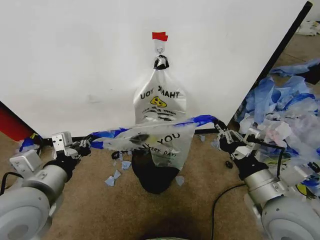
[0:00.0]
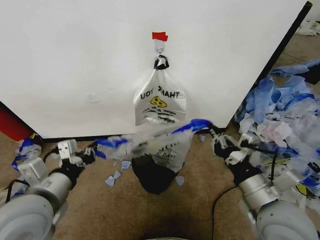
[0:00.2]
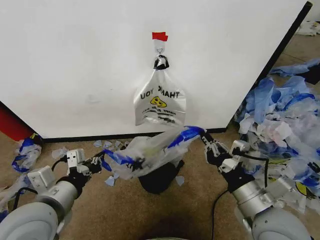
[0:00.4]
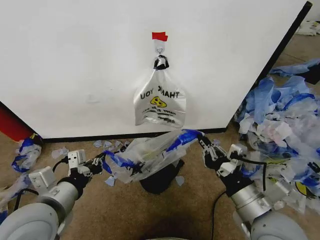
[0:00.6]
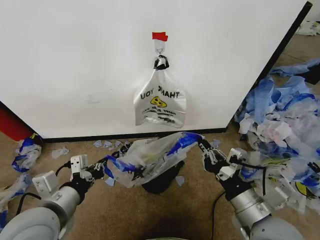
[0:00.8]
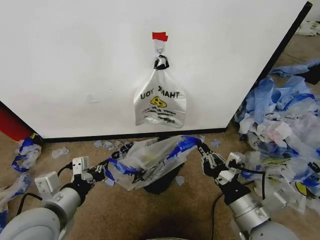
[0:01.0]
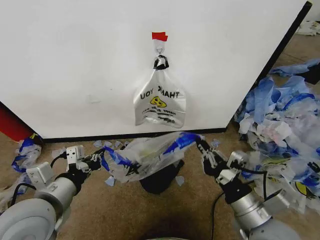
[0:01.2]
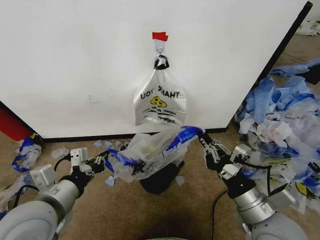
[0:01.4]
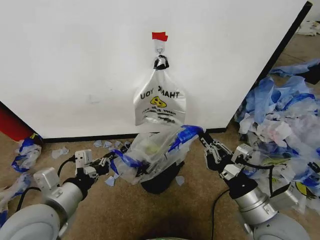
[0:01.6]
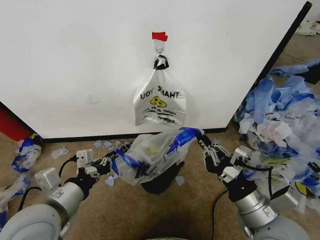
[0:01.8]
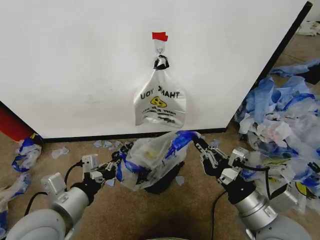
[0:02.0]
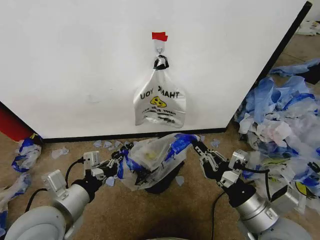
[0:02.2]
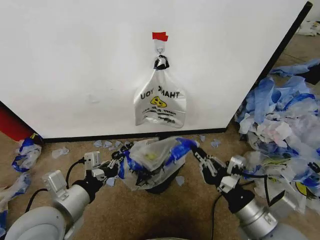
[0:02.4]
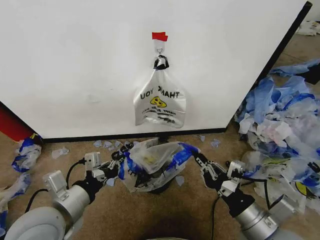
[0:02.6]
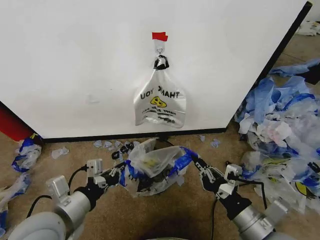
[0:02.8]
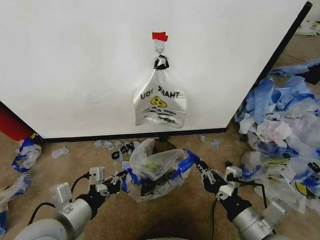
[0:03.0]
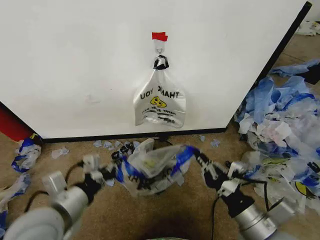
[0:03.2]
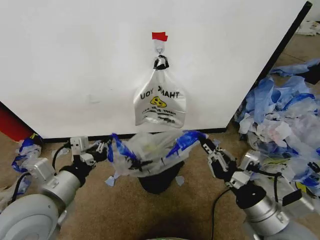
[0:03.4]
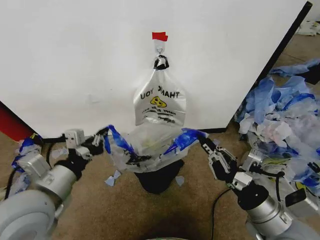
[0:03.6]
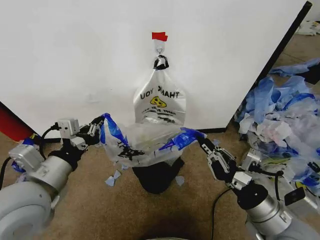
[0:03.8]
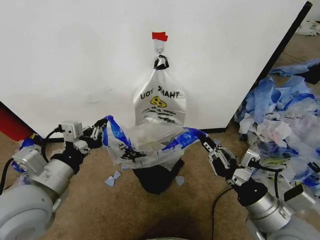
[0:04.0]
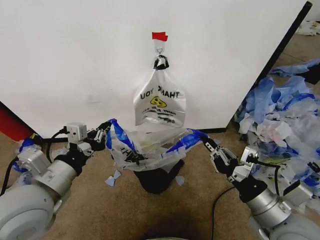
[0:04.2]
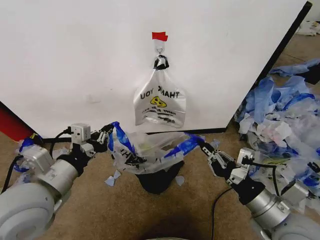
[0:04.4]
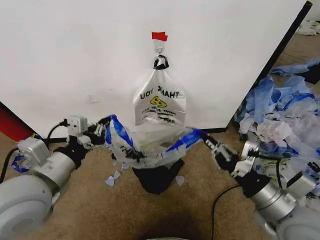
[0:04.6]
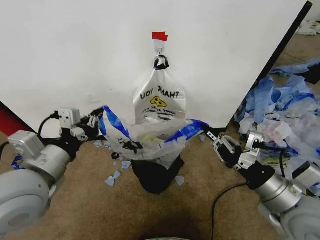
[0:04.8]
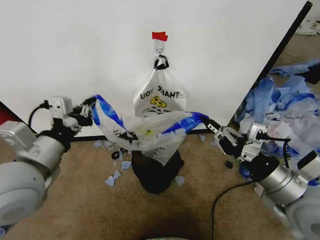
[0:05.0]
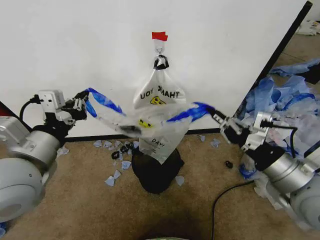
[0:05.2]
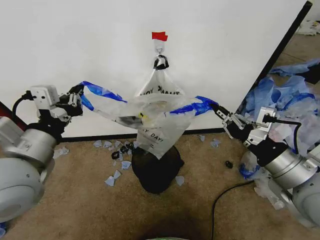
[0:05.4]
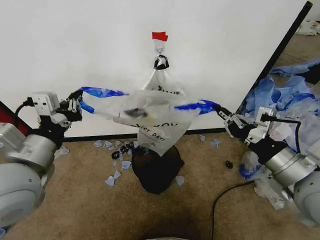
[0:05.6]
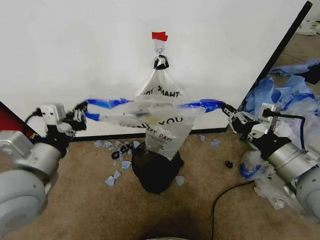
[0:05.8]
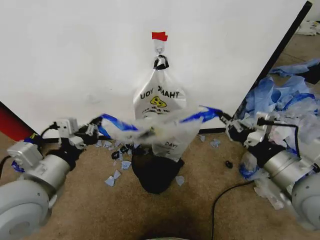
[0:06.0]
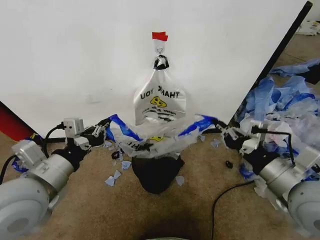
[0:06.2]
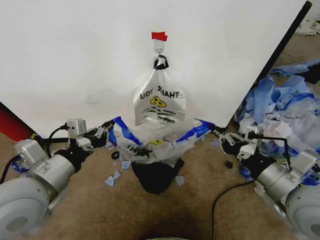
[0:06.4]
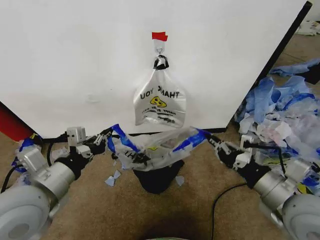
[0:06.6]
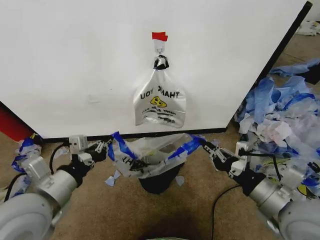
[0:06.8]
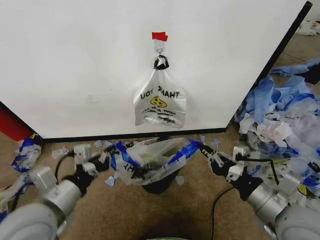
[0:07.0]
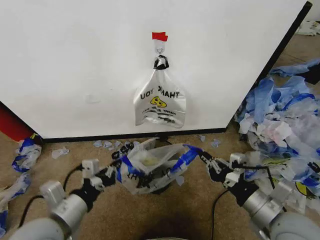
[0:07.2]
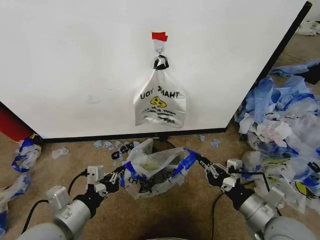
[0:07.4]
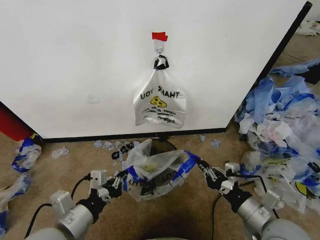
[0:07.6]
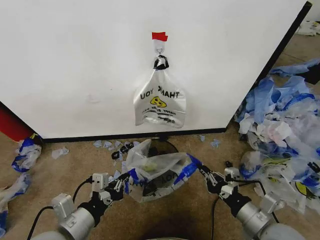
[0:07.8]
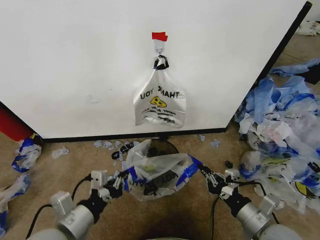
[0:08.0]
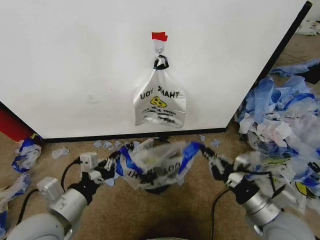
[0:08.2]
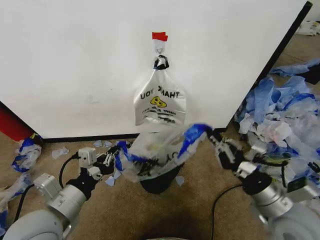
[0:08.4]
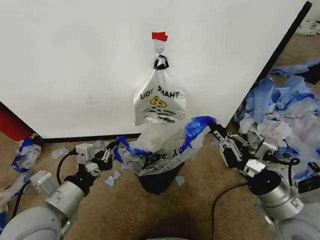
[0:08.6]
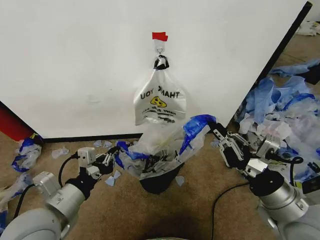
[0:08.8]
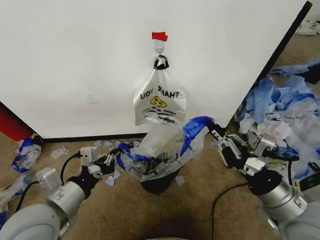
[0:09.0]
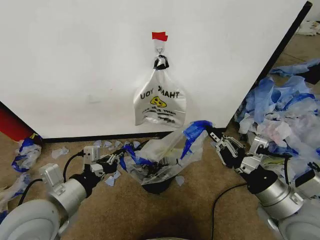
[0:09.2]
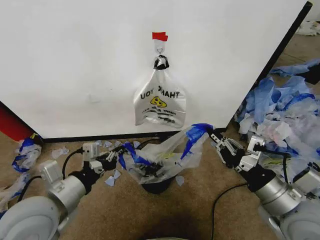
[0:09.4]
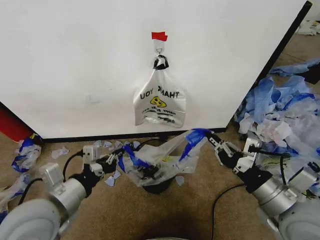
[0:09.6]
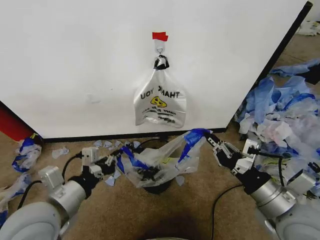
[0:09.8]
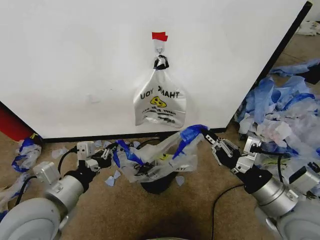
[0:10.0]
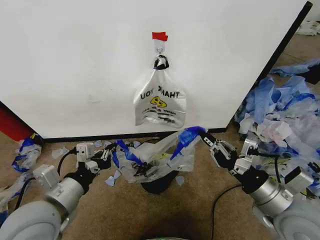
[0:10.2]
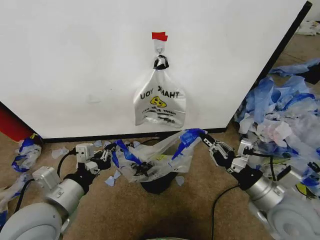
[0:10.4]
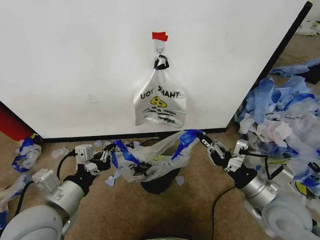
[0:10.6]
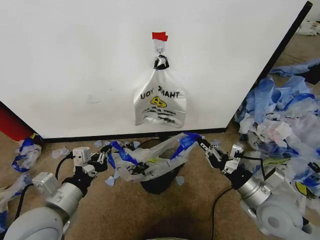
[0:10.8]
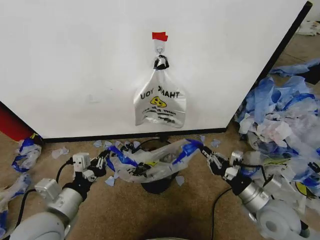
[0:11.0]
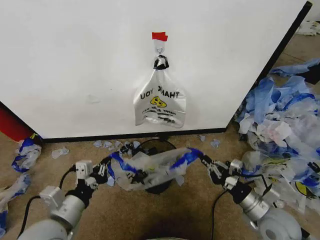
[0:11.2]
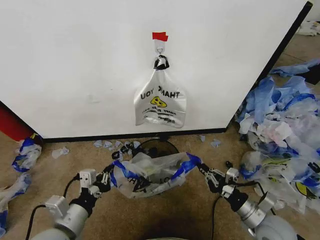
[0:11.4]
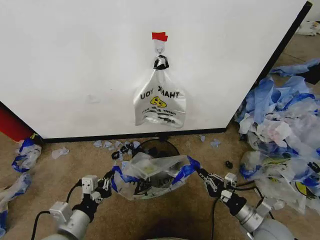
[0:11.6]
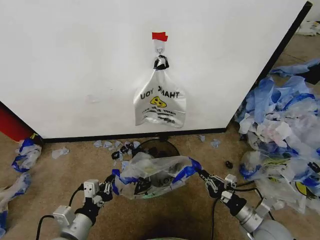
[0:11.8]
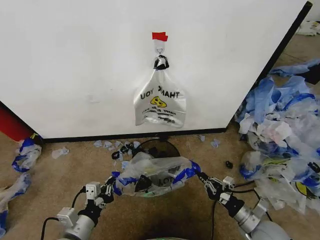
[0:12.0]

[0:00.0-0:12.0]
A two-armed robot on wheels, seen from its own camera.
Task of the whole recording: Pick up the garbage bag from the wall and place it over the trash bin.
0:03.0 to 0:04.4: The right gripper changes place by roughly 5 cm. The left gripper travels upward by about 5 cm.
0:04.4 to 0:06.0: The right gripper goes roughly 10 cm upward.
0:06.0 to 0:07.6: The right gripper goes some 15 cm downward. Meanwhile the left gripper shifts roughly 10 cm downward and backward.
0:07.6 to 0:09.0: The right gripper shifts roughly 5 cm upward; the left gripper moves roughly 5 cm.
0:09.0 to 0:10.4: There are only small adjustments of the grippers.
0:10.4 to 0:12.0: Both grippers travel together downward, approximately 15 cm.

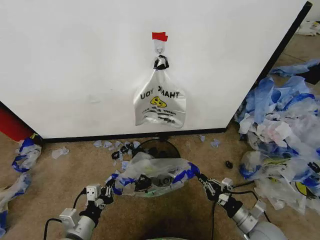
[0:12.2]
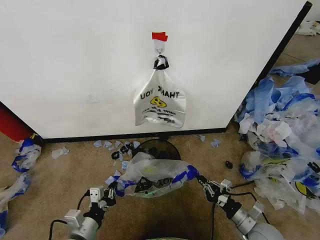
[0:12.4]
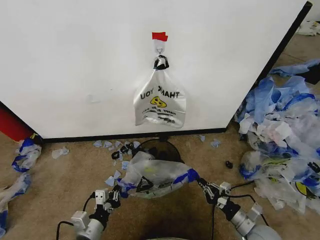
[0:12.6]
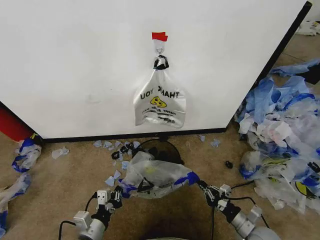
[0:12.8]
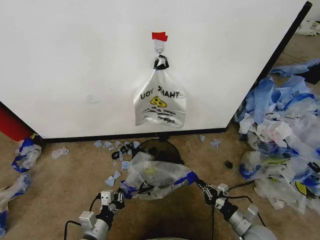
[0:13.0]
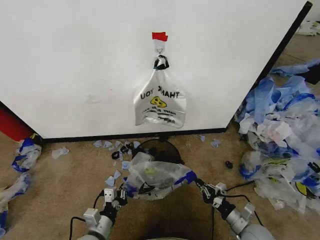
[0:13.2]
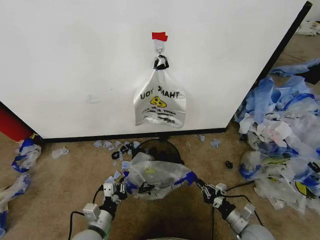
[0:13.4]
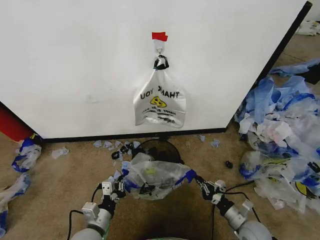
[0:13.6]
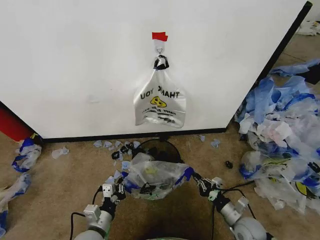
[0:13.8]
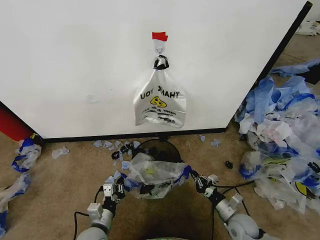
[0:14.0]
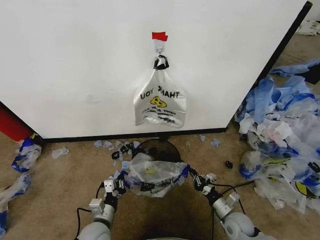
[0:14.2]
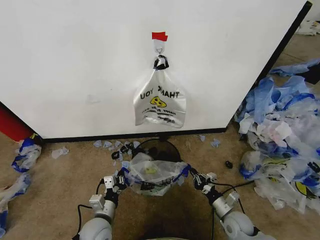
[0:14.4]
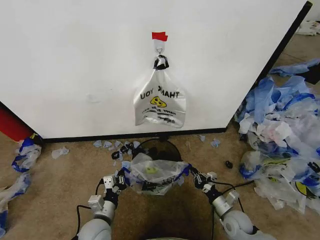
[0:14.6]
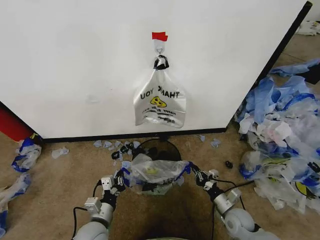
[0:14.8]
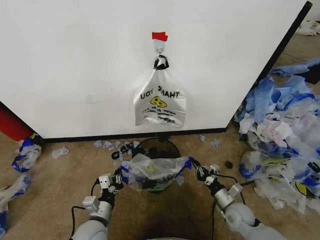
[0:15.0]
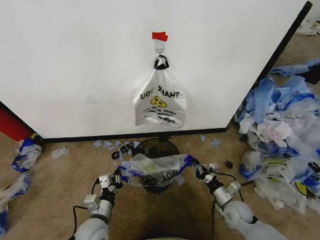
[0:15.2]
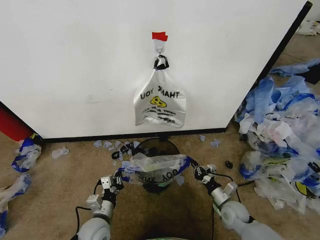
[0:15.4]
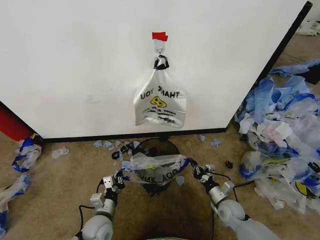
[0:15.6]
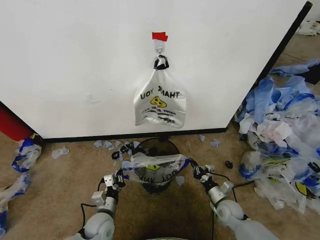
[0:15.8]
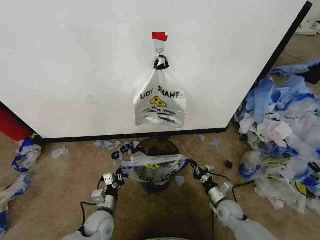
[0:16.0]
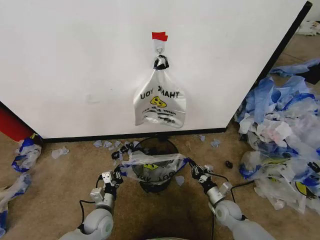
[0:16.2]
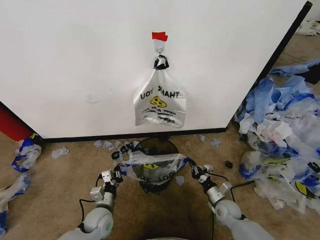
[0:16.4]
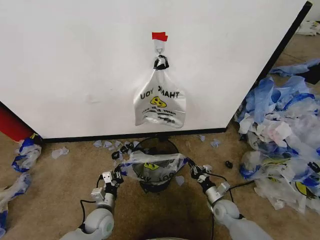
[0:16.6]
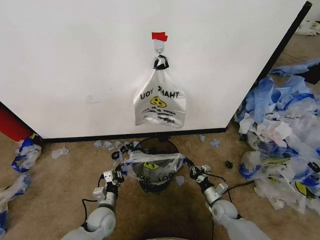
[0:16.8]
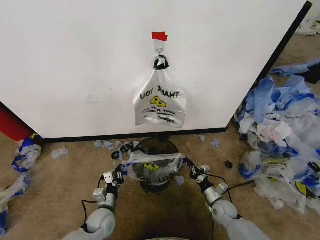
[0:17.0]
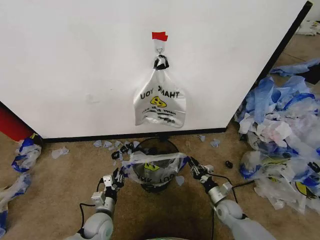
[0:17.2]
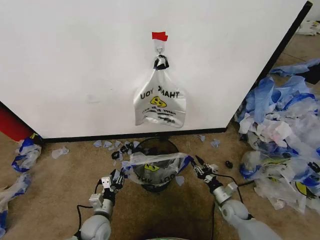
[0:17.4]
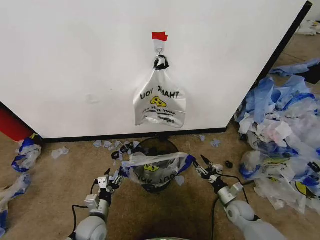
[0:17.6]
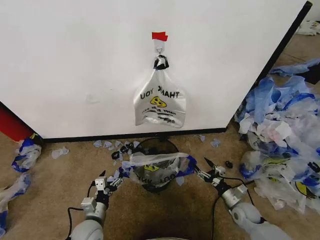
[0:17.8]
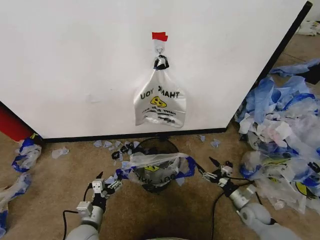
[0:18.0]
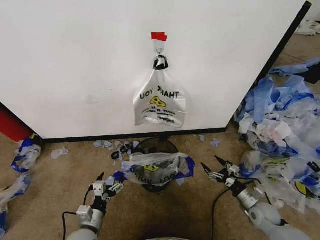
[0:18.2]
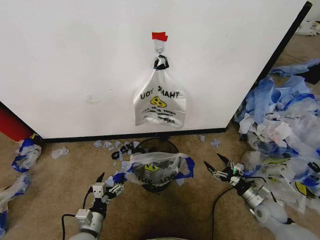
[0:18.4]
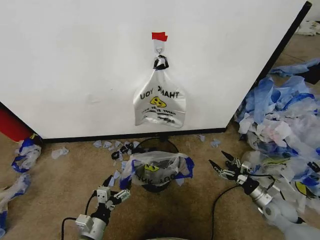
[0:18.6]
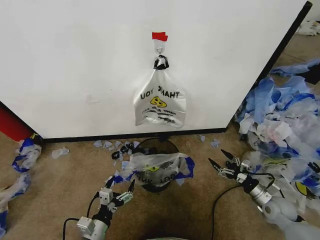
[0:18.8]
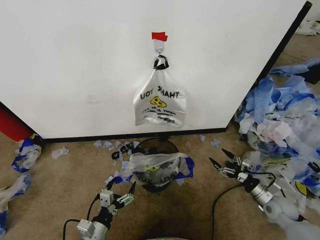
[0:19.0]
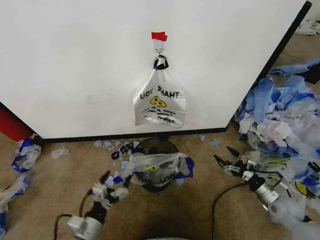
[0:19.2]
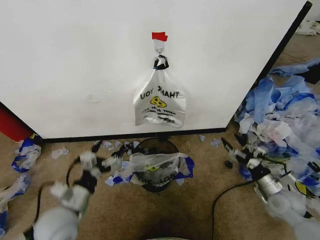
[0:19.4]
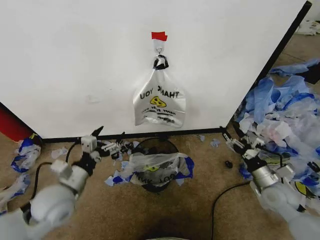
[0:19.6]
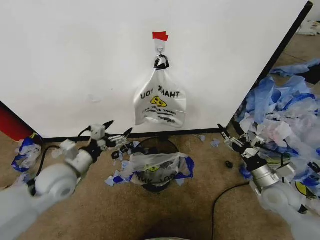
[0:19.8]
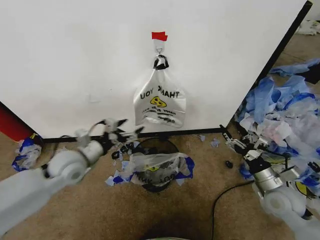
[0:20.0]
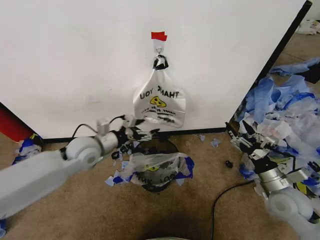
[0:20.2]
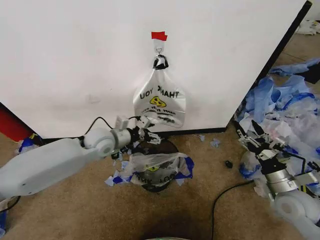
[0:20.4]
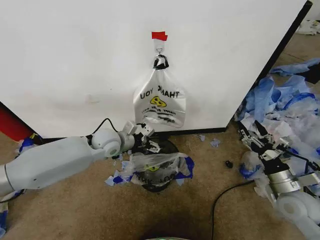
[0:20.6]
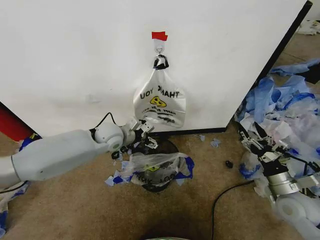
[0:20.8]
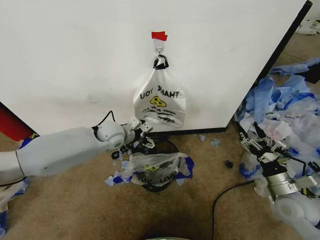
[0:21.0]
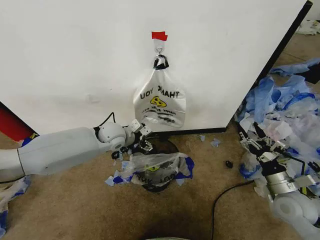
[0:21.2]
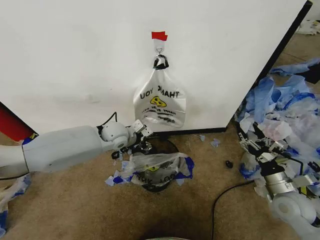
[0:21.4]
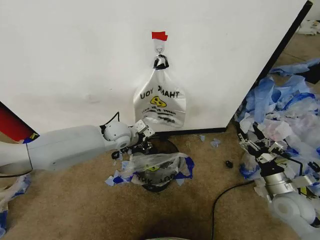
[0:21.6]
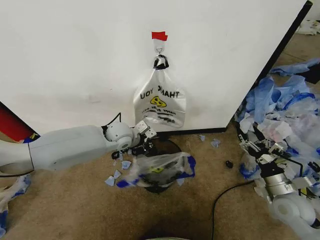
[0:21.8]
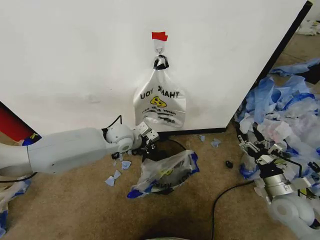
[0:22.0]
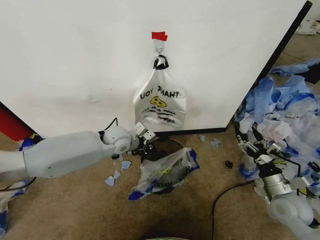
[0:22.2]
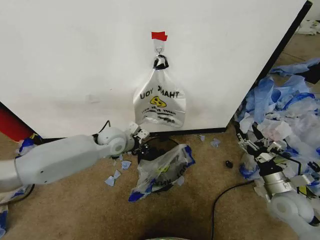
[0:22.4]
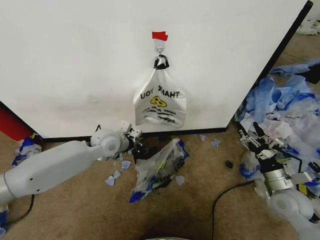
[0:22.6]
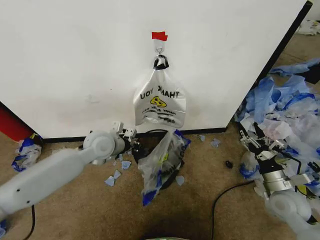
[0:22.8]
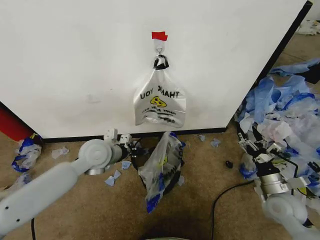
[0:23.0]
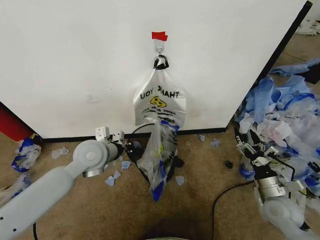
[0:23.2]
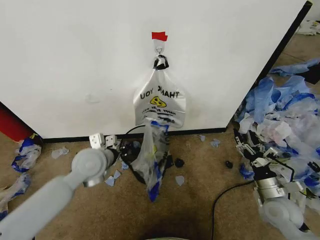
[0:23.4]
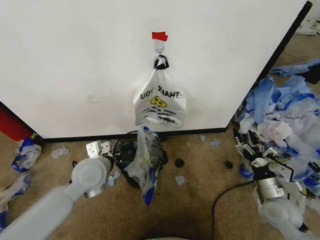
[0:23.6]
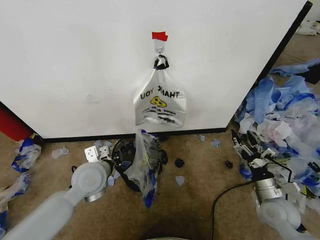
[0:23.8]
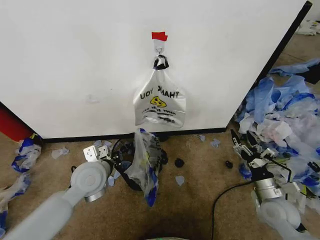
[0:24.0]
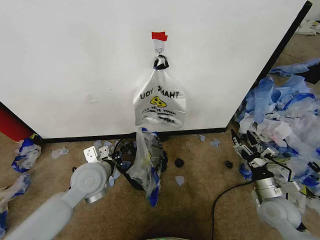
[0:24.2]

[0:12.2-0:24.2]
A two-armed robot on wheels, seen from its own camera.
Task of the whole recording: Pick up the garbage bag from the wall and place it over the trash bin.
0:12.2 to 0:13.8: Both grippers move downward, approximately 5 cm.
0:13.8 to 0:15.2: The right gripper goes about 5 cm forward.
0:15.2 to 0:16.6: Both grippers move downward, approximately 5 cm.
0:16.6 to 0:18.2: The right gripper heads to the right and upward, covering roughly 15 cm, and opens; the left gripper is displaced backward by roughly 10 cm, and opens up.
0:18.2 to 0:19.8: The right gripper is displaced upward by some 15 cm. Meanwhile the left gripper goes about 25 cm upward and forward.
0:19.8 to 0:21.2: The left gripper goes roughly 20 cm forward and to the right.
0:21.2 to 0:22.6: The left gripper closes its fingers.
0:22.6 to 0:24.2: The left gripper goes approximately 15 cm backward.
